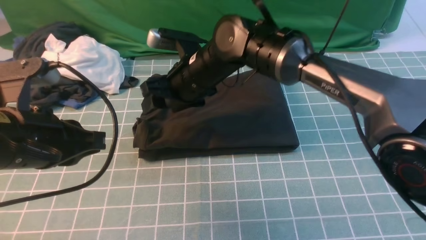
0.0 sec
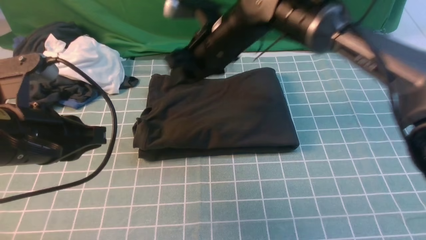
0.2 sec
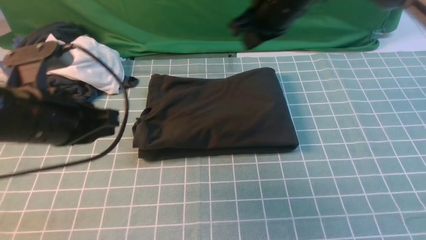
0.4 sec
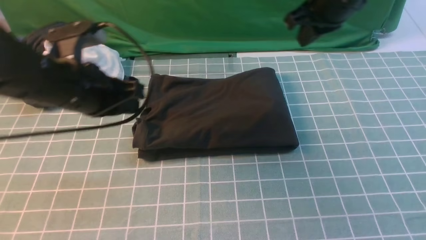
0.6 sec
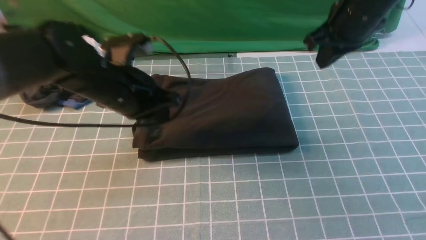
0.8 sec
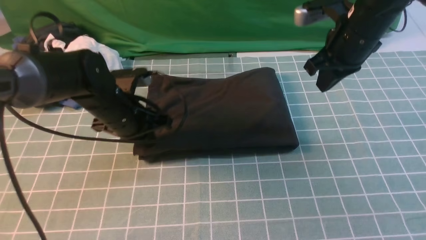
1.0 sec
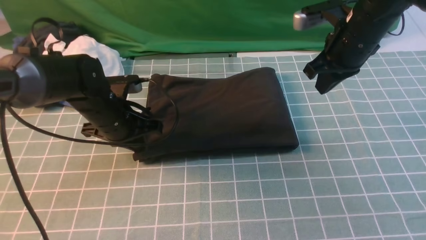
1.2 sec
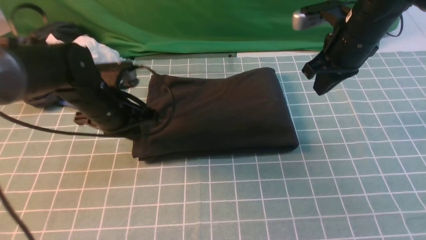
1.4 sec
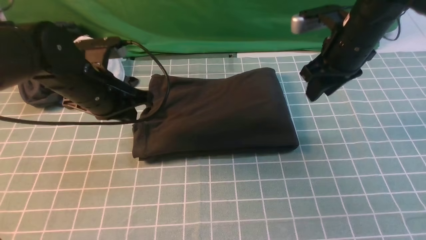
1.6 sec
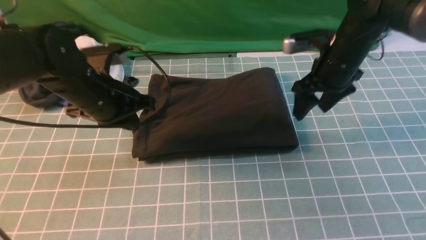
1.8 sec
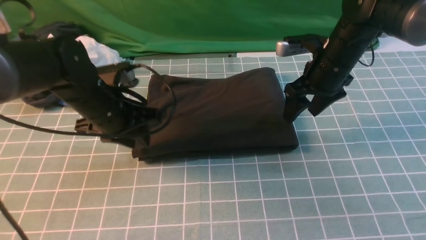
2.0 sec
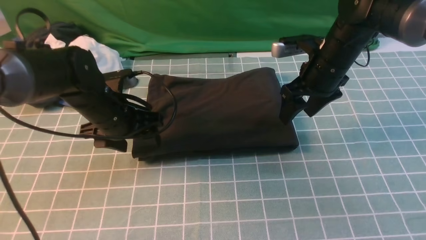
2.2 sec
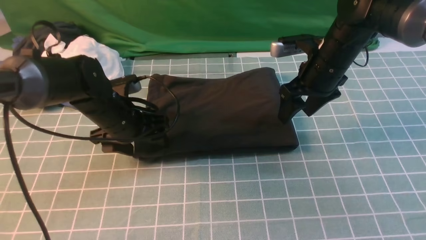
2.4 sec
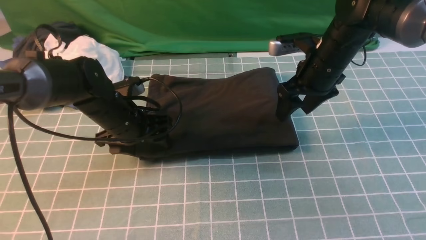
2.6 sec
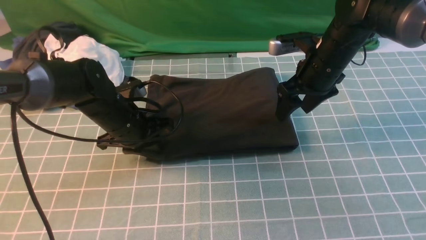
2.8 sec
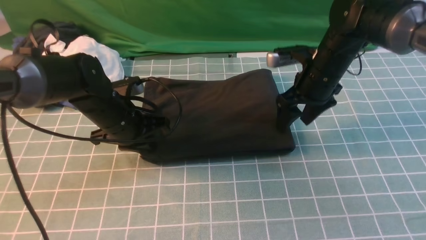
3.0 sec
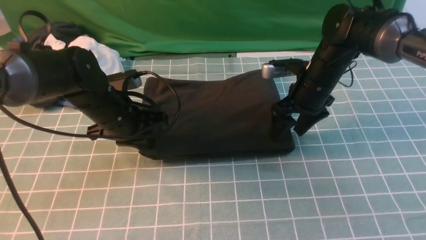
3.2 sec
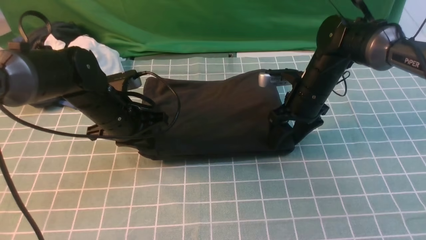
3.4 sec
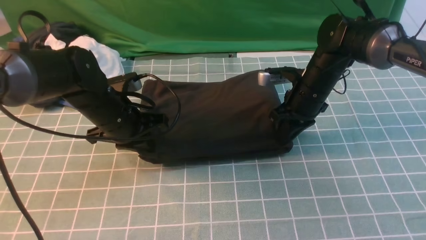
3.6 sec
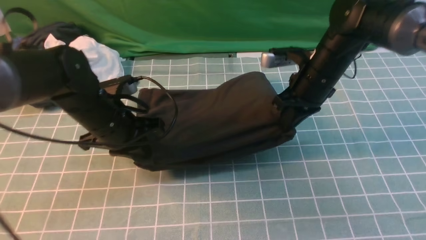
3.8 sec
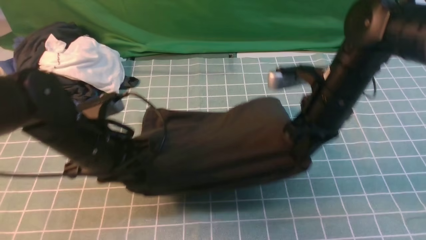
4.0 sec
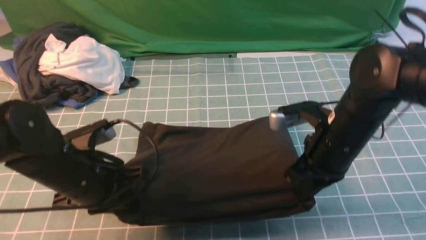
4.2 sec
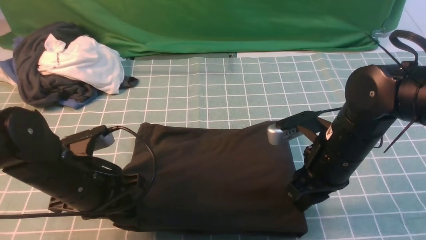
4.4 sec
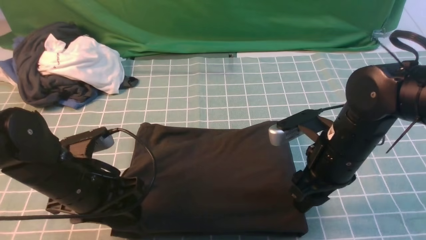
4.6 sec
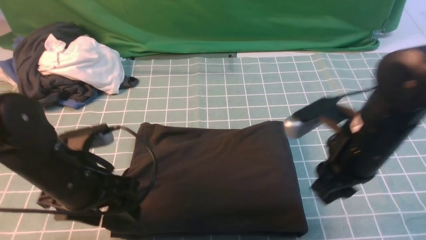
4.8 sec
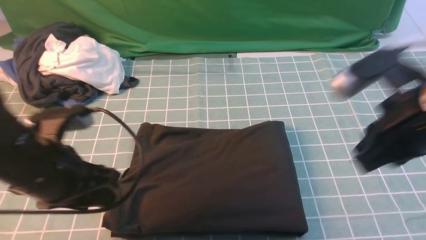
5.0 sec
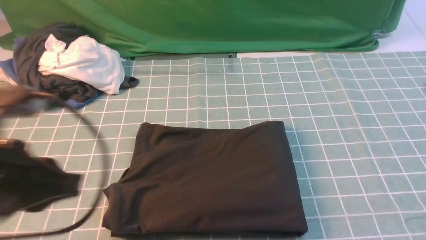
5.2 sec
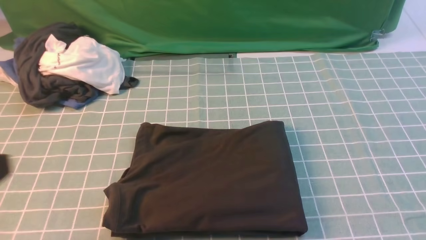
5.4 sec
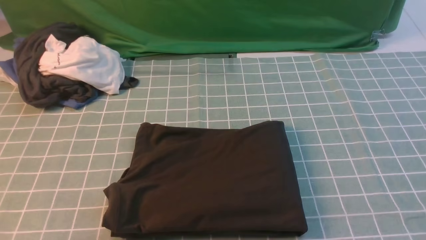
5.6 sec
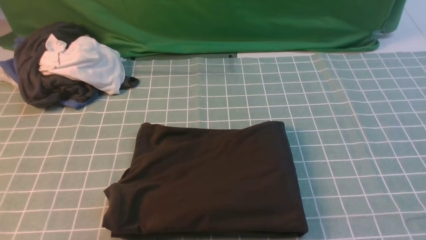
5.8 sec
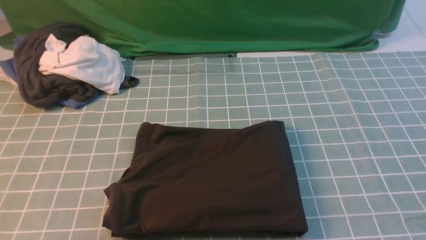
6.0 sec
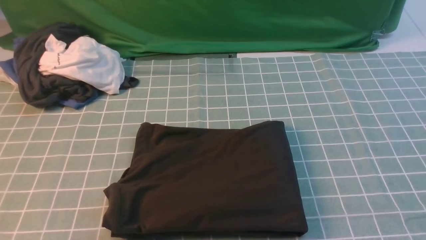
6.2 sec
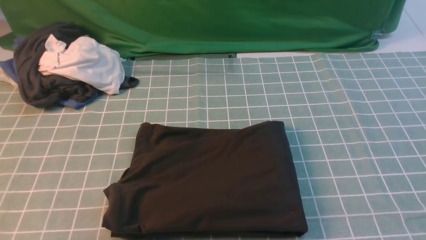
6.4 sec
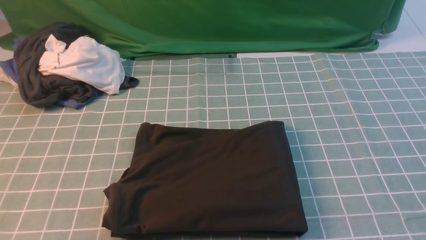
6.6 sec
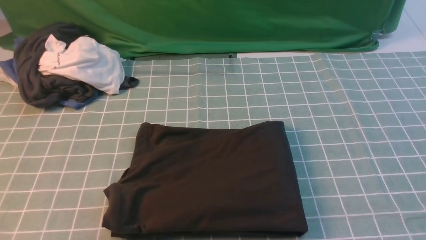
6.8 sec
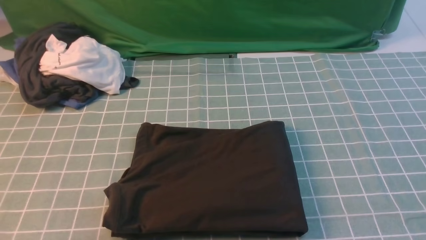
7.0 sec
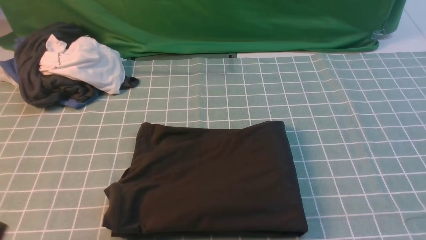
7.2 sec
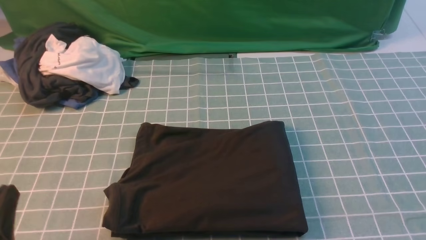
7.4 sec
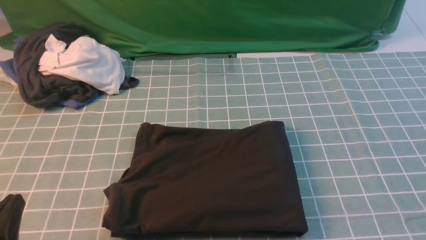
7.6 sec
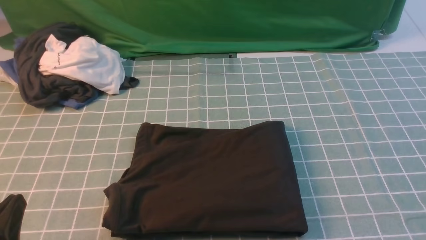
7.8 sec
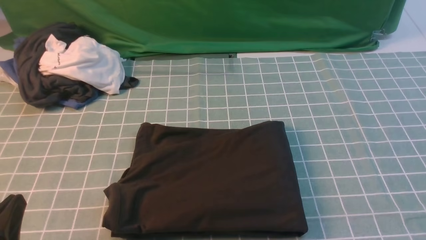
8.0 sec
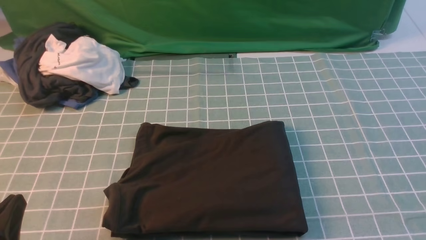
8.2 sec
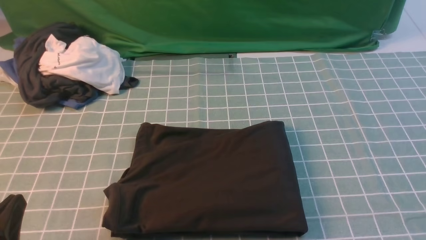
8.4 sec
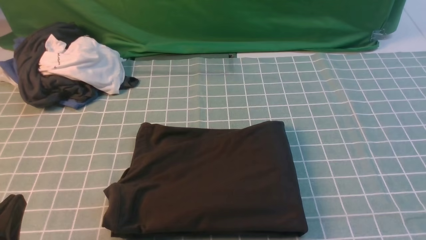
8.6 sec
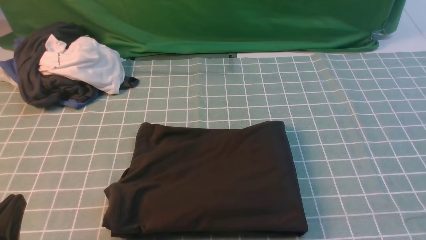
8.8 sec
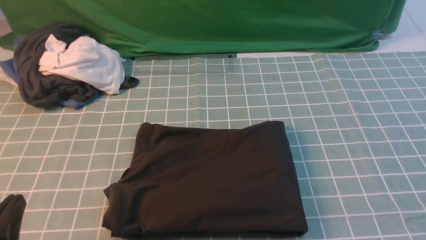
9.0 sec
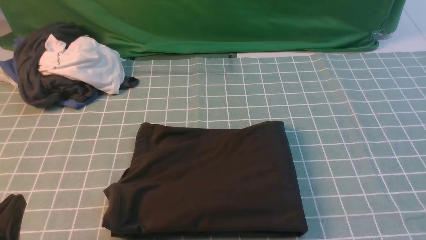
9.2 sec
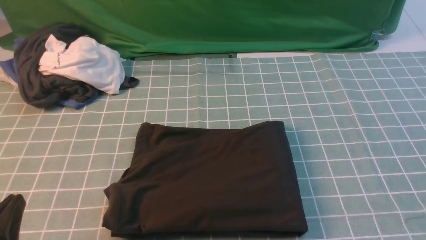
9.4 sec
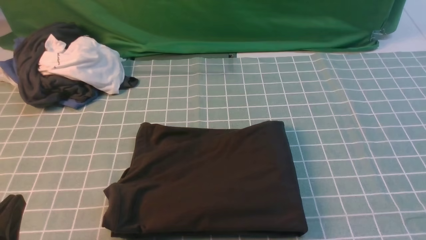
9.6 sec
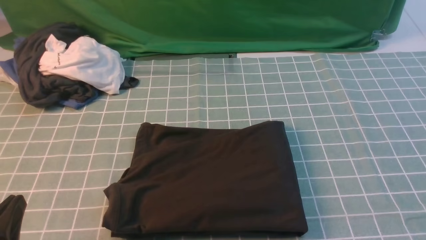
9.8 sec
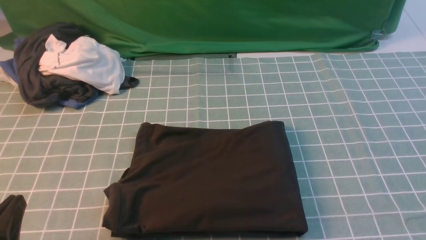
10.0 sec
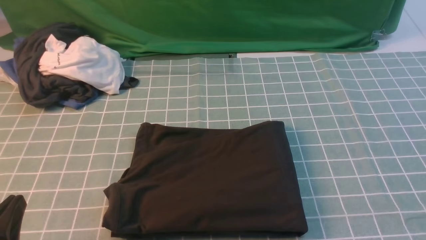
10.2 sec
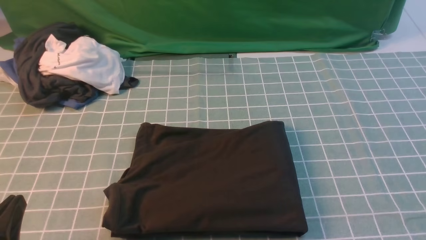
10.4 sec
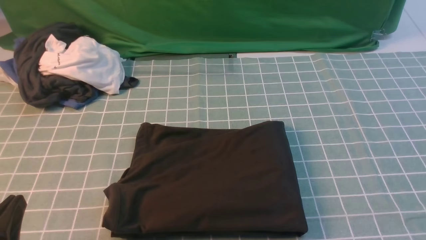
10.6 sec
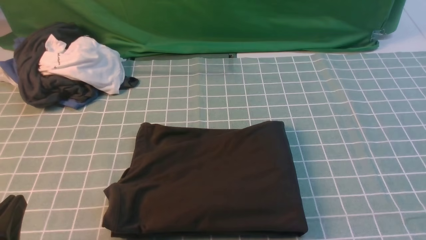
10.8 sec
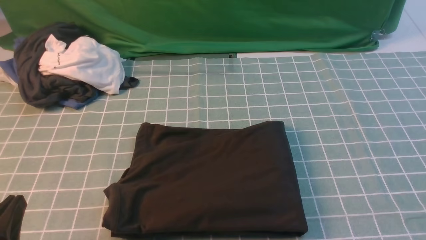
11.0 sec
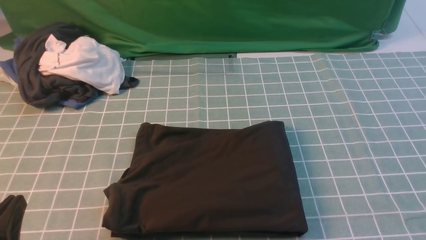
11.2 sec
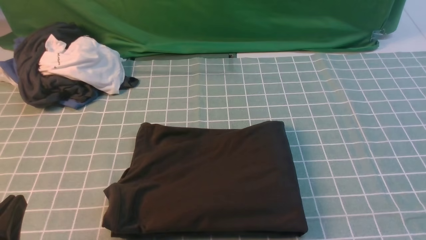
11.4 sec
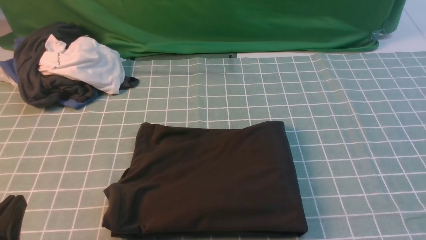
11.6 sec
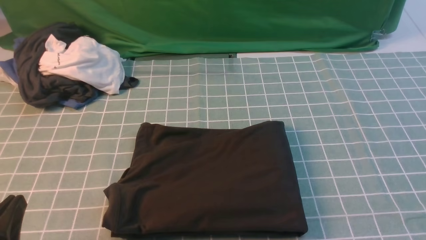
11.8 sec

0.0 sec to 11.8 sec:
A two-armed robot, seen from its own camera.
0.0 sec to 1.4 sec: The right gripper goes about 20 cm to the right, and closes up. Meanwhile the left gripper moves forward and downward, roughly 15 cm.
1.4 sec to 3.0 sec: The left gripper opens, then closes once more; the right gripper heads downward, covering some 10 cm, and opens up.
3.0 sec to 4.4 sec: The two grippers go roughly 15 cm backward. The right gripper closes up.
4.4 sec to 6.0 sec: The left gripper moves backward and upward, some 25 cm, and closes up. Meanwhile the right gripper is displaced backward, to the right and upward by about 35 cm, and closes its fingers.
6.0 sec to 7.4 sec: The left gripper heads downward, covering roughly 15 cm.
10.4 sec to 11.8 sec: The two grippers keep their place.
